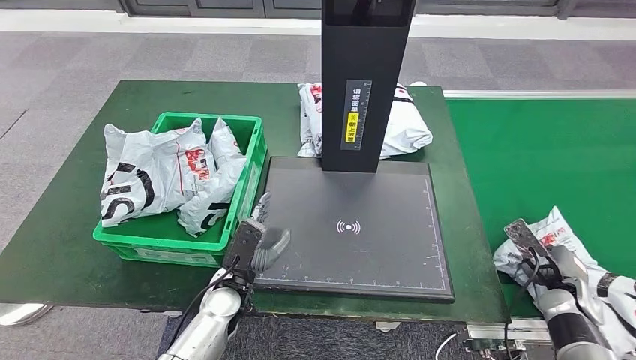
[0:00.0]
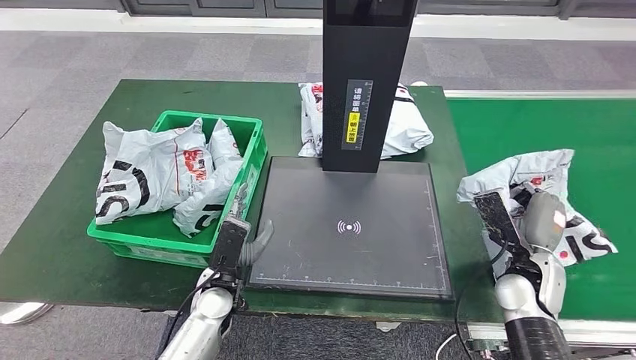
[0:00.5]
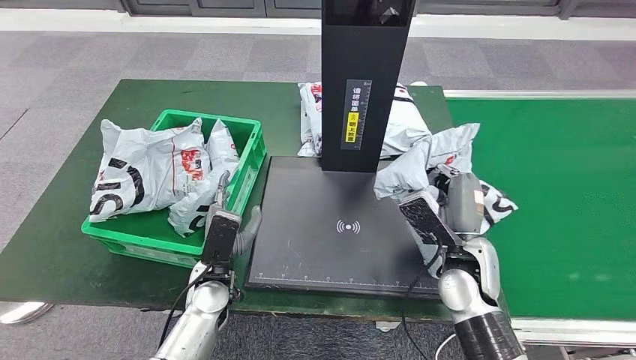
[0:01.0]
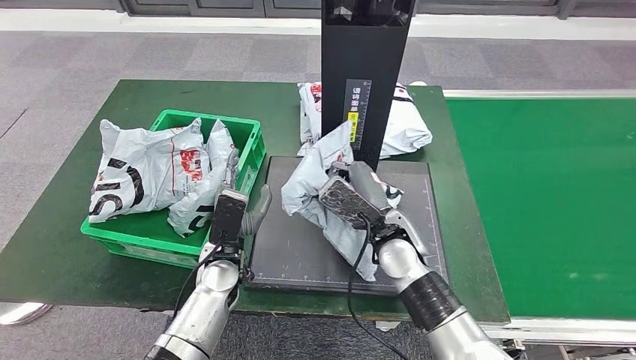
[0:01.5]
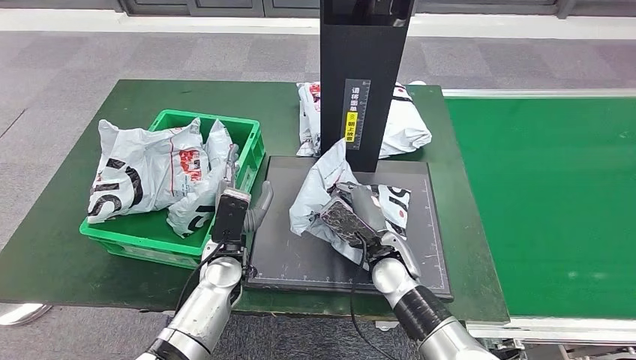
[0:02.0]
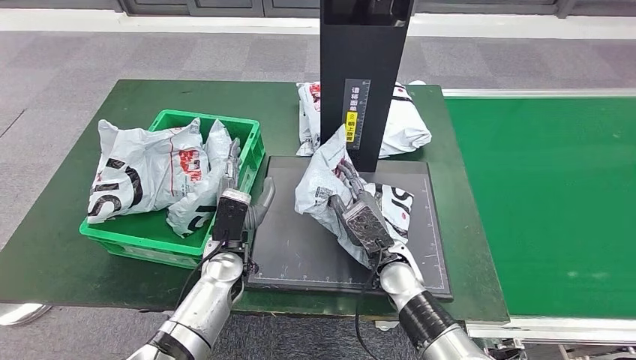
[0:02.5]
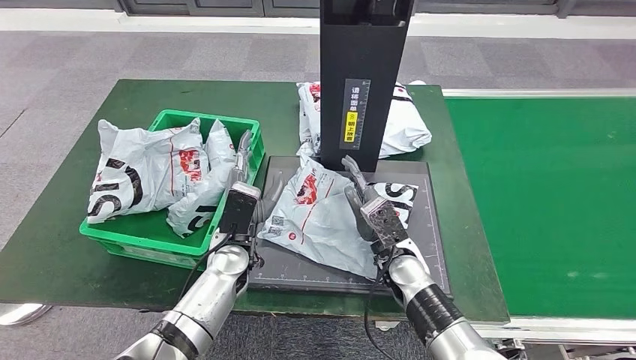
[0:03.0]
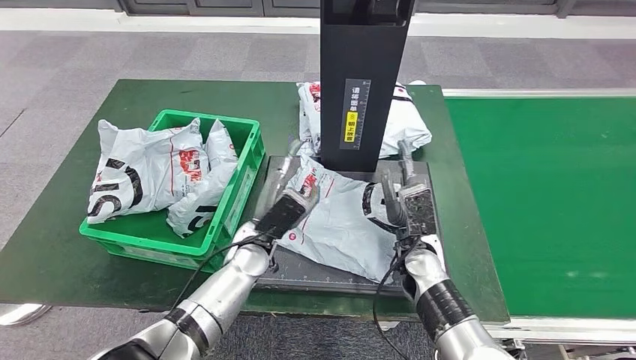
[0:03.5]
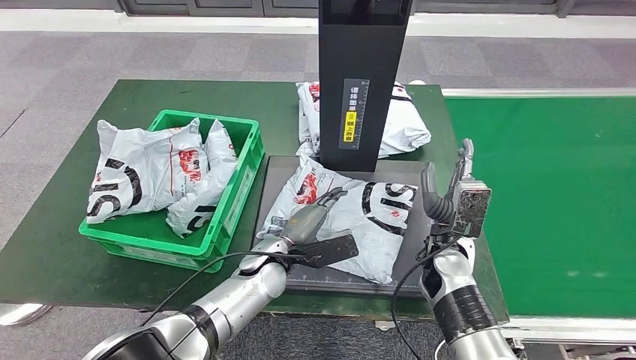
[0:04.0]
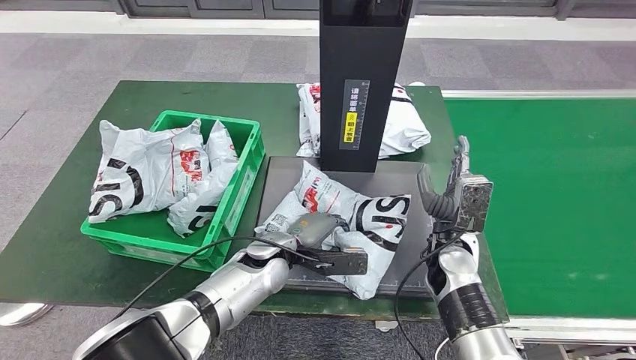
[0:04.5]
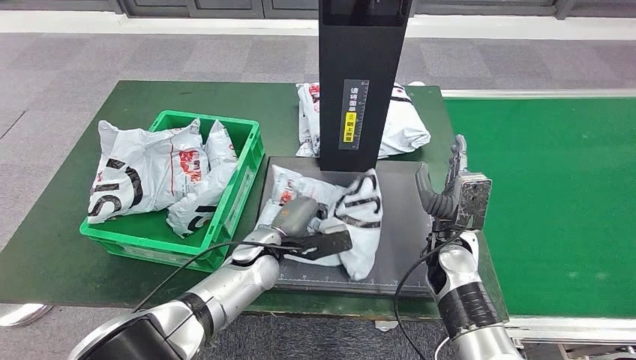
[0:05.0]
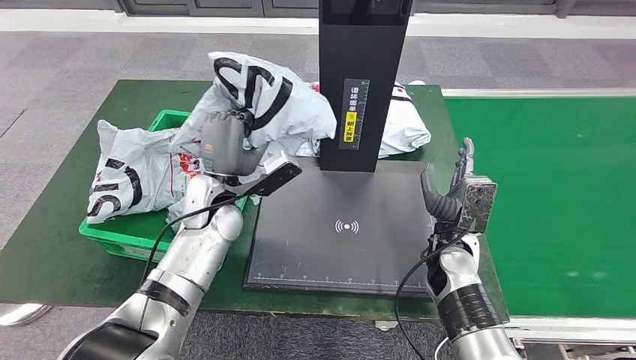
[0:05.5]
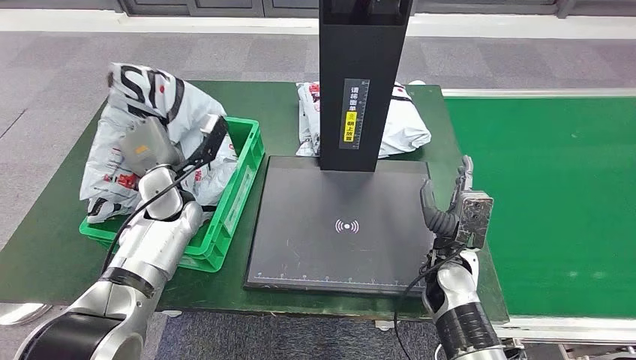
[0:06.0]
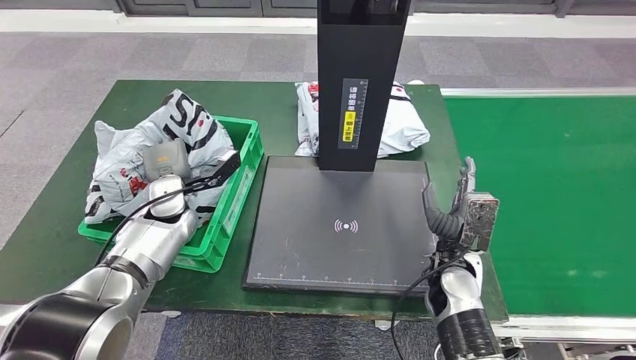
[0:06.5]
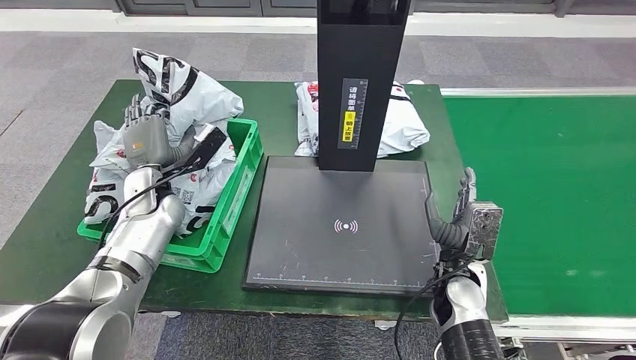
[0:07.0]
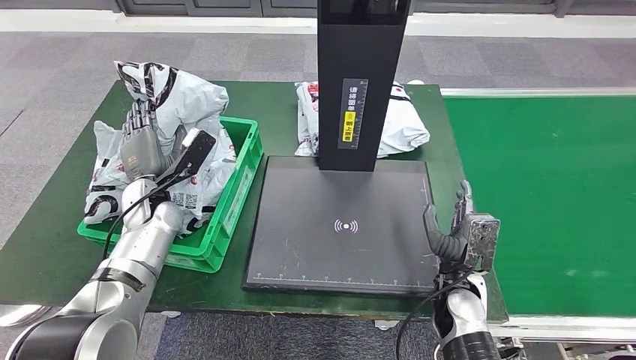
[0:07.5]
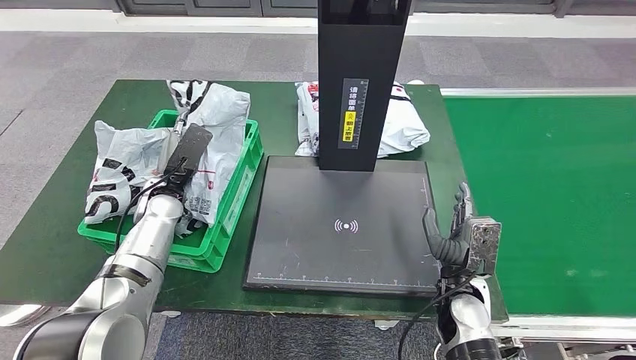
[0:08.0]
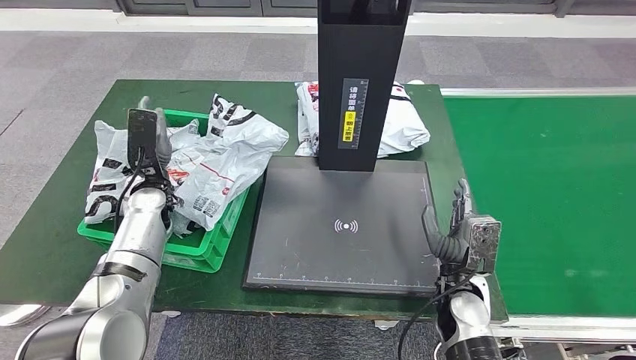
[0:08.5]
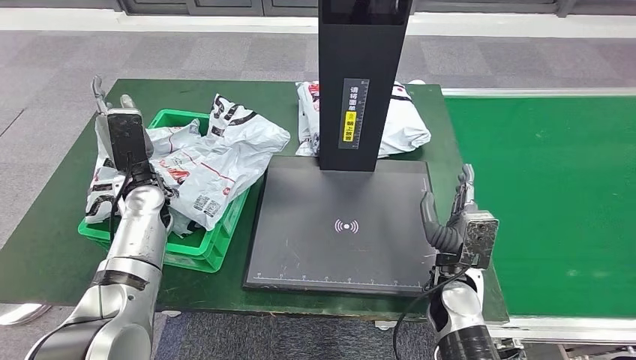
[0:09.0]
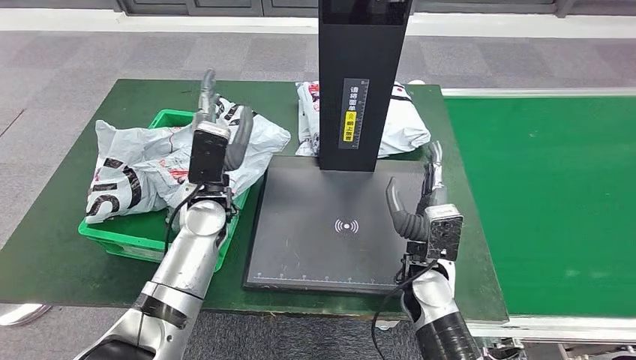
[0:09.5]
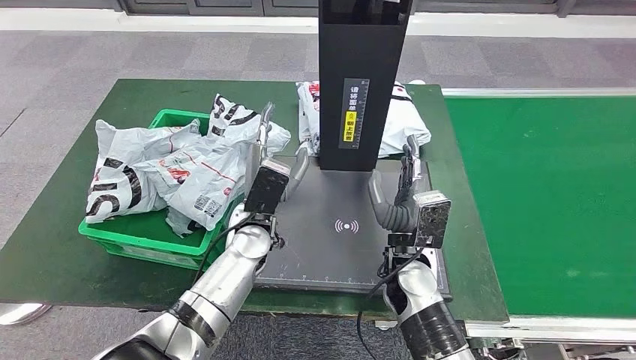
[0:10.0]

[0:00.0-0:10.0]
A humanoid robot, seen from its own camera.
Step, 0:01.5 to 0:03.5: Place the parcel onto the inbound machine.
Step, 0:04.0 to 0:05.5: Pick up the parcel from the inbound machine.
Step, 0:06.0 to 0:10.0: Place the parcel into the delivery box.
0:02.0 to 0:04.0: The right hand travels to the right by roughly 10 cm. The left hand travels to the right by about 5 cm.
0:06.0 to 0:08.0: The left hand shifts by approximately 5 cm; the right hand changes place by some 5 cm.
